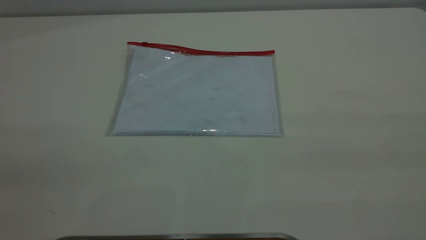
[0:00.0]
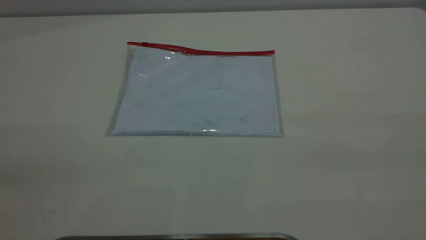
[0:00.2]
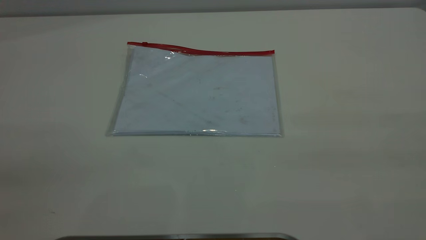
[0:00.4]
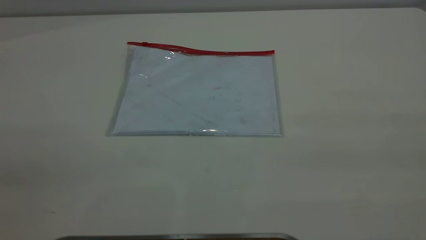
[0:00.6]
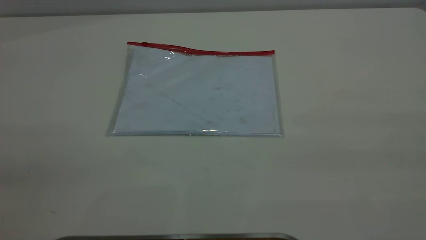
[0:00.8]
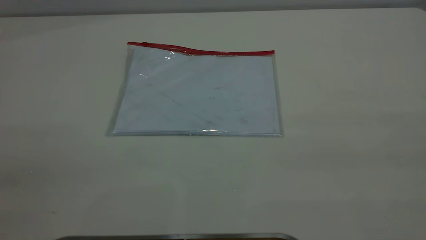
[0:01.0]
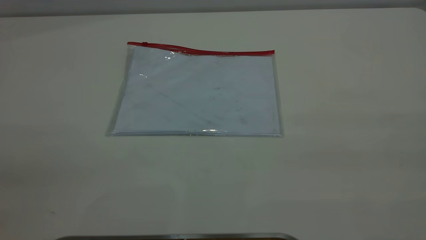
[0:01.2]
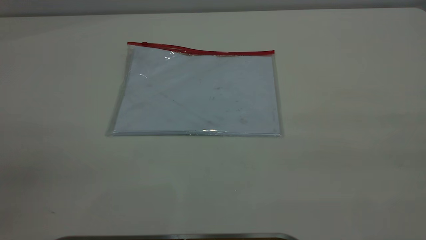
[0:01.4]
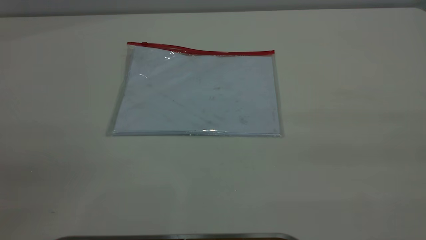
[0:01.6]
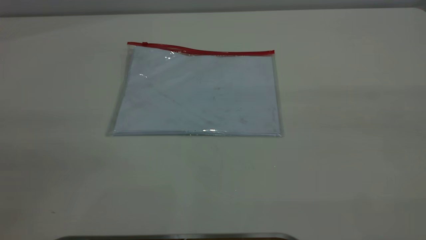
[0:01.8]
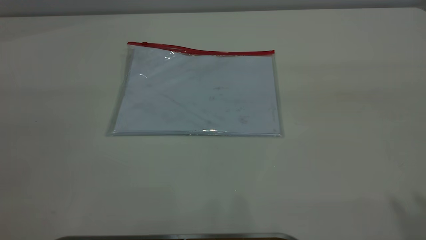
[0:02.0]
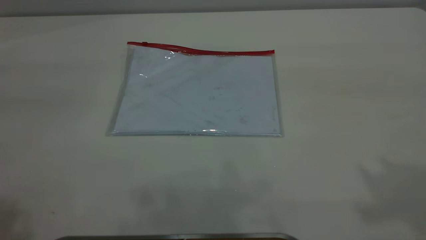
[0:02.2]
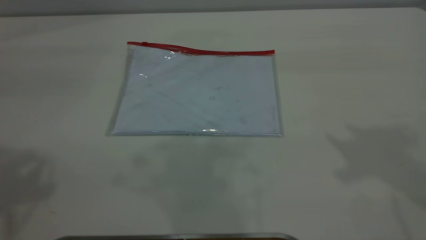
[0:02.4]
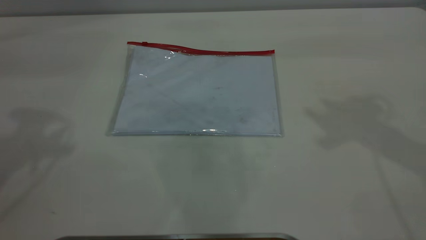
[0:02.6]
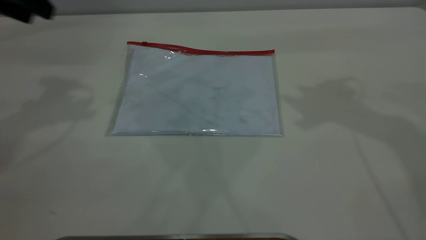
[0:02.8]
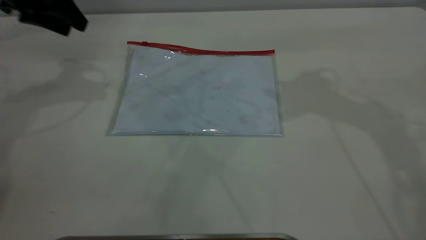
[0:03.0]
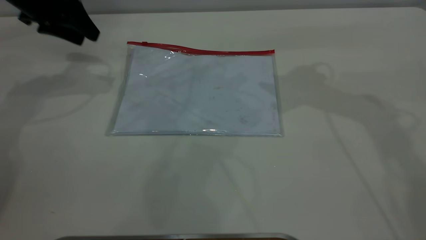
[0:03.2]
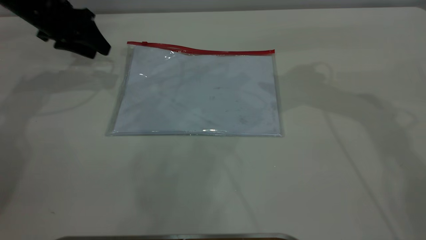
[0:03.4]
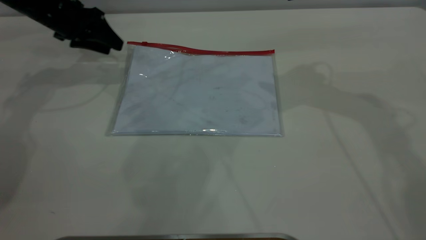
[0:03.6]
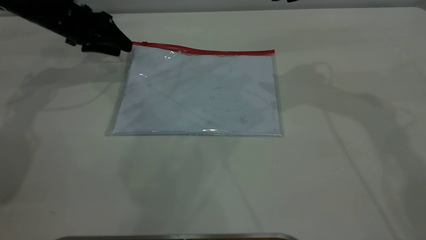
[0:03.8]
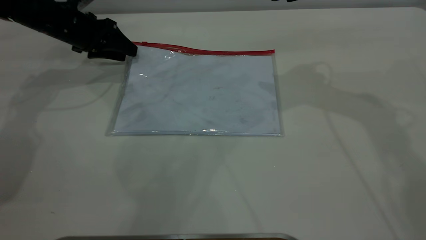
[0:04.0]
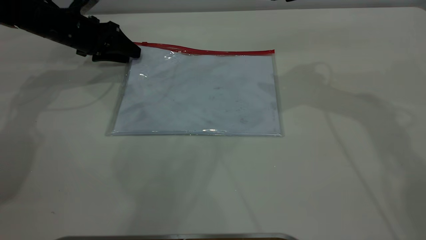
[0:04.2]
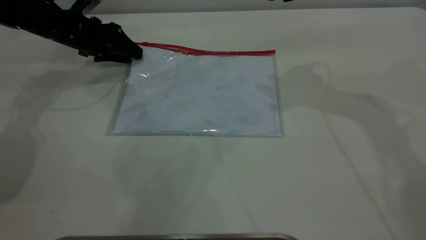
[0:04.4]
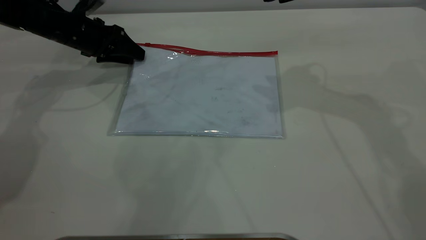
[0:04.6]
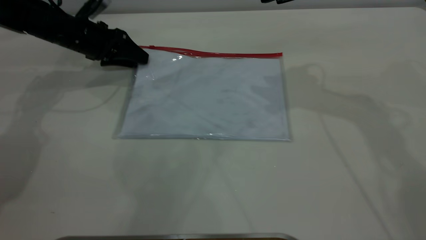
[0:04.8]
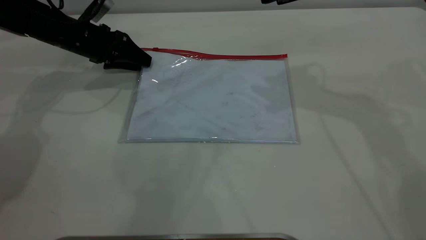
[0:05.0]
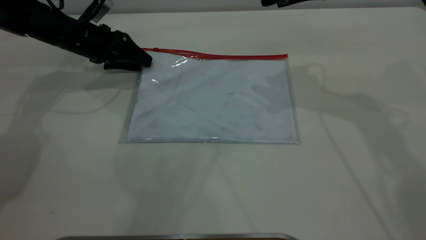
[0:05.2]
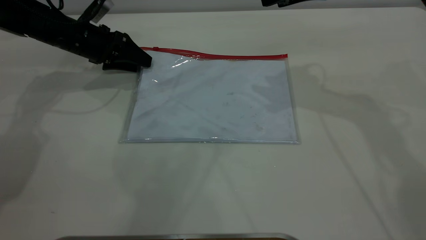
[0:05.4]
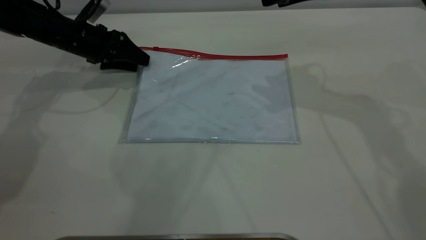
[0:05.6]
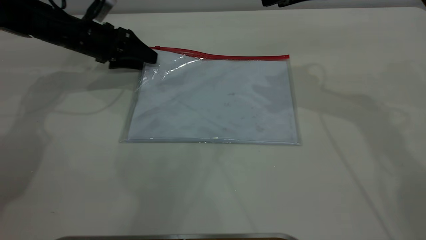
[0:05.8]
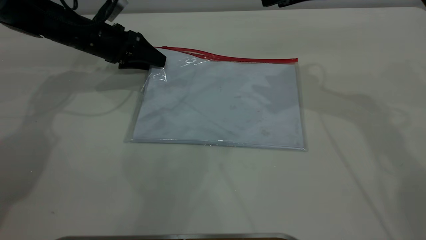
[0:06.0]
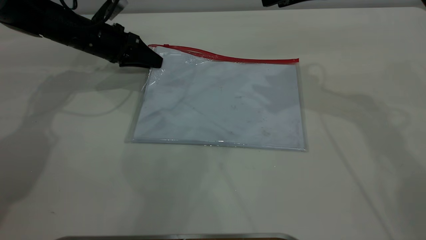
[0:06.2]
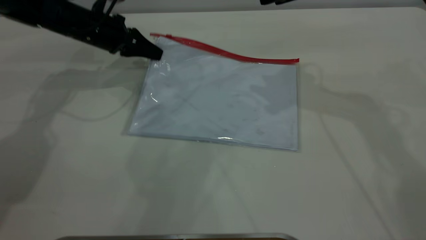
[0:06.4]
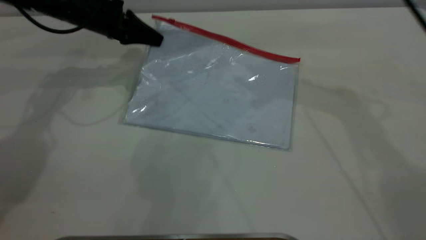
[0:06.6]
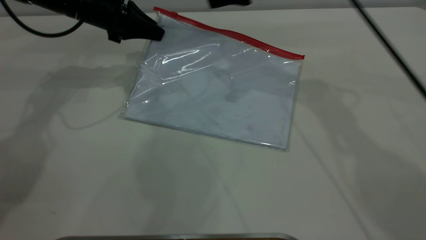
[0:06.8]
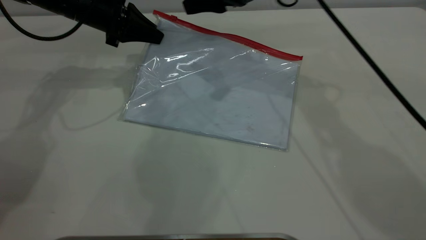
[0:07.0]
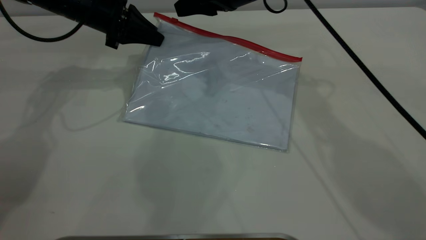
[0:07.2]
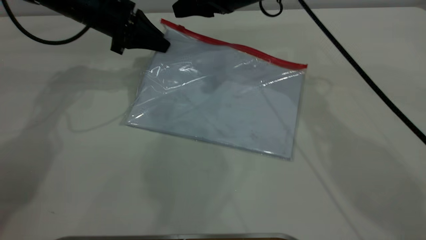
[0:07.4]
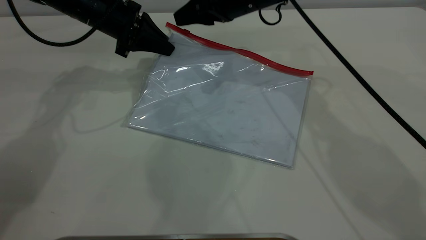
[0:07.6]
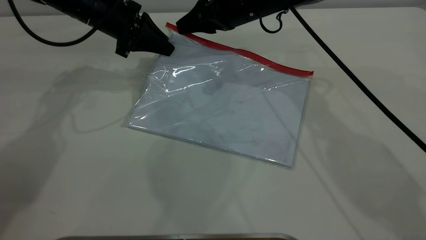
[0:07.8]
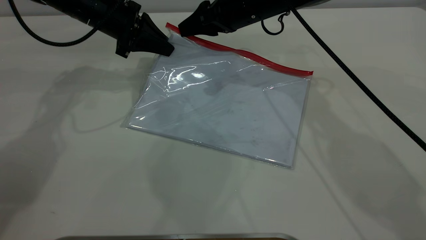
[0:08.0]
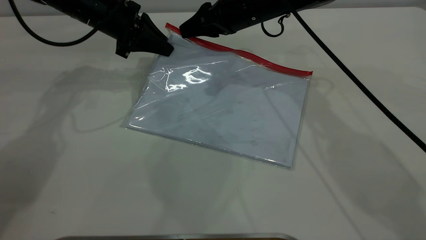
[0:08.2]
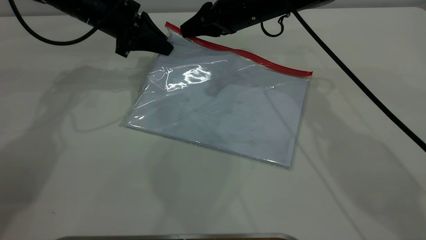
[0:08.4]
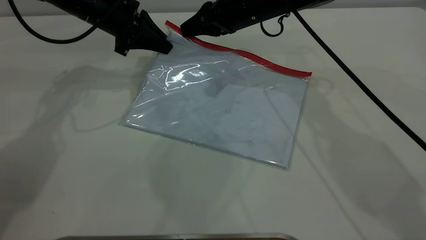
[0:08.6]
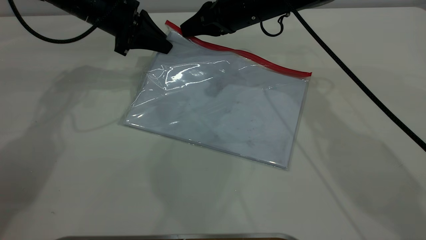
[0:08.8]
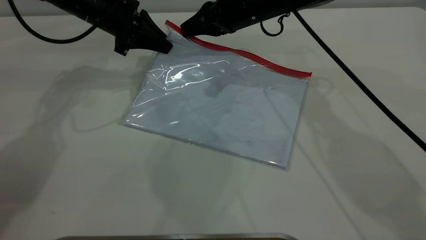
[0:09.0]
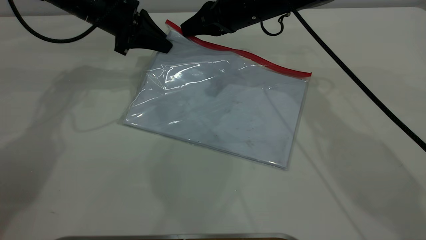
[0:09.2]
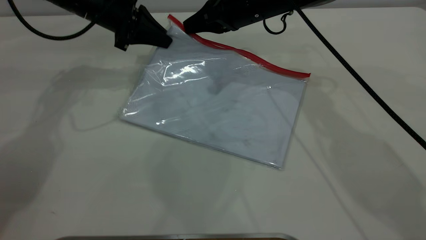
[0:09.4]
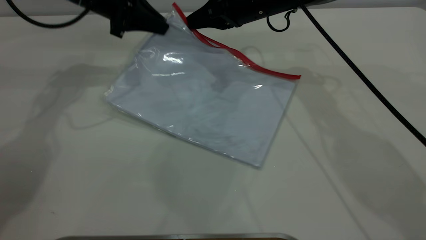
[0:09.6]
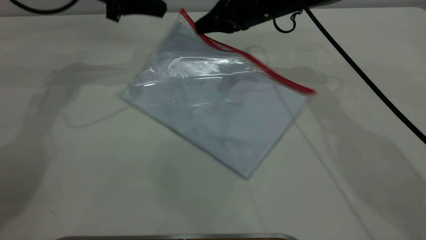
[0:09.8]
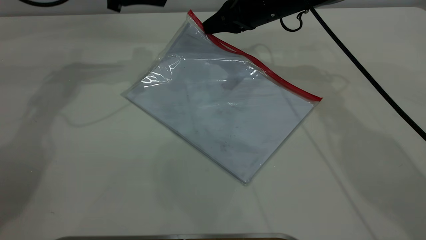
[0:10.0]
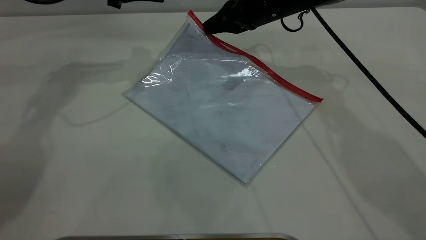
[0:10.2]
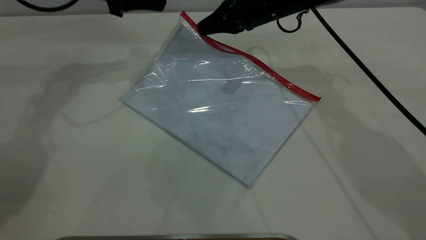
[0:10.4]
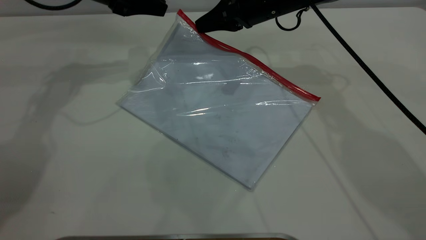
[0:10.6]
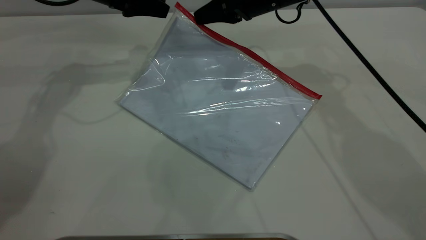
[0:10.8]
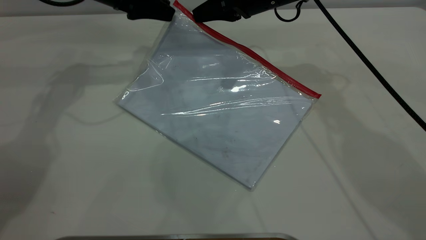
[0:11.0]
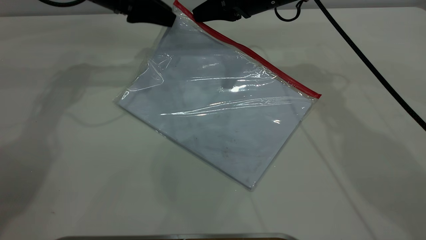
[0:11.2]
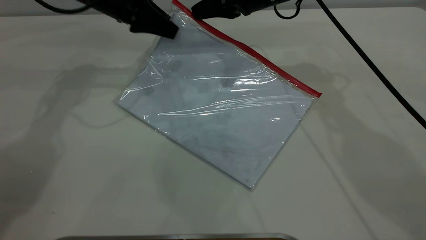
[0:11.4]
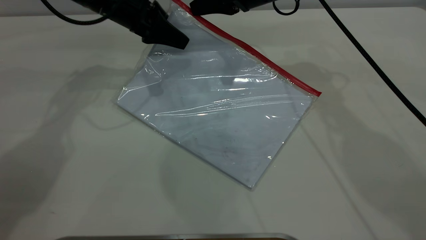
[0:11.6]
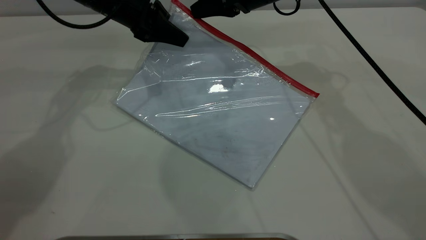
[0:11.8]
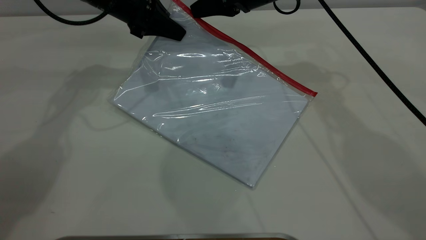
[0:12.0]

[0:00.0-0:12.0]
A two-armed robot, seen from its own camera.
Step, 0:00.0 to 0:06.4: Pick up the transparent plastic bag with the left gripper.
0:01.6 to 0:03.0: The left gripper heads forward, covering approximately 50 cm.
0:03.0 to 0:04.4: The left gripper travels downward and forward by about 15 cm.
0:04.4 to 0:06.0: The grippers make only small movements.
0:06.0 to 0:07.6: The left gripper shifts about 5 cm upward, and closes up, while the right gripper shifts roughly 15 cm to the left, downward and forward.
0:07.6 to 0:09.0: The right gripper closes up.
0:10.4 to 0:12.0: The left gripper opens and closes again.

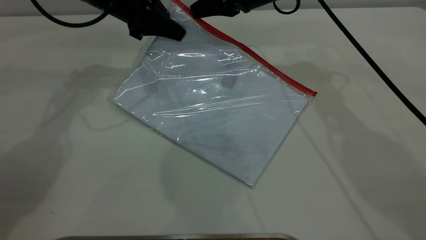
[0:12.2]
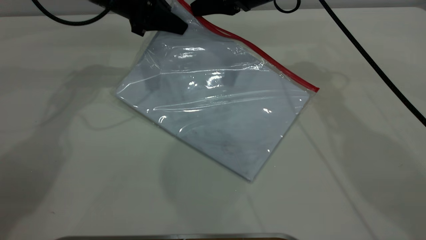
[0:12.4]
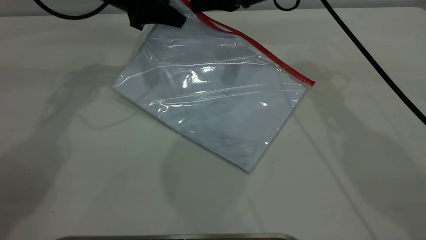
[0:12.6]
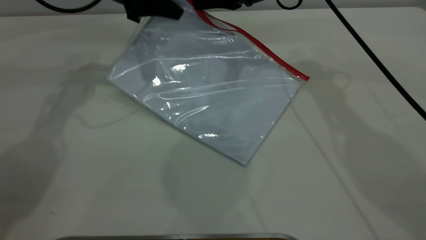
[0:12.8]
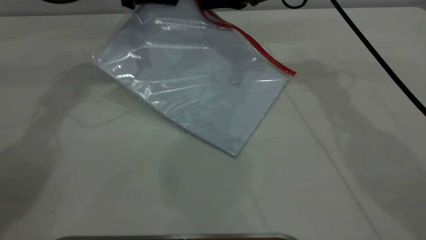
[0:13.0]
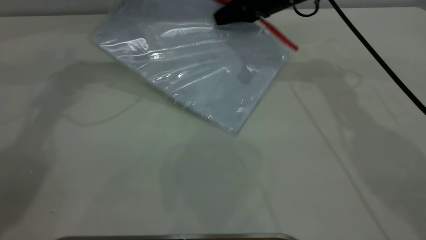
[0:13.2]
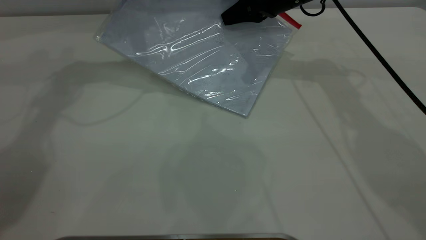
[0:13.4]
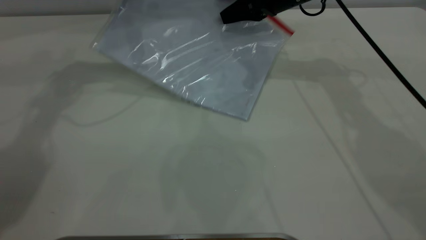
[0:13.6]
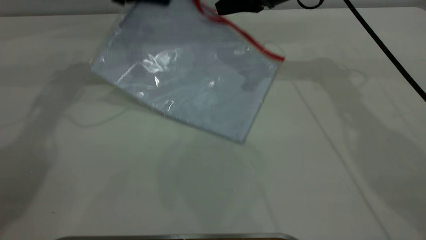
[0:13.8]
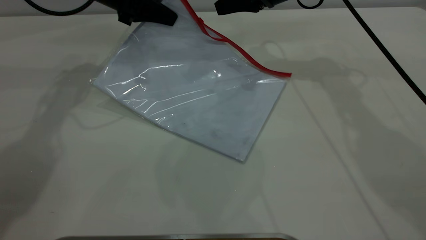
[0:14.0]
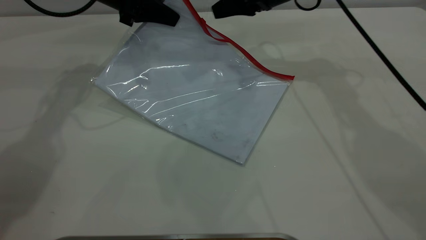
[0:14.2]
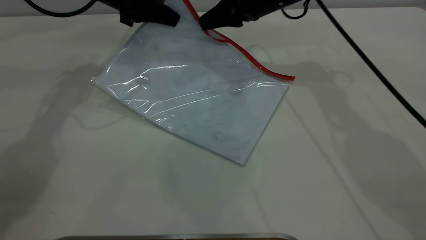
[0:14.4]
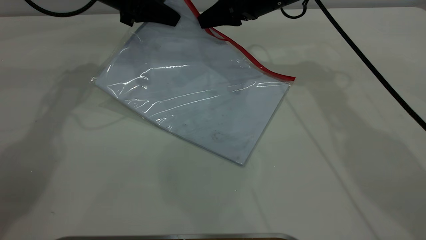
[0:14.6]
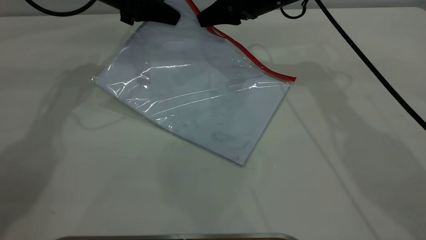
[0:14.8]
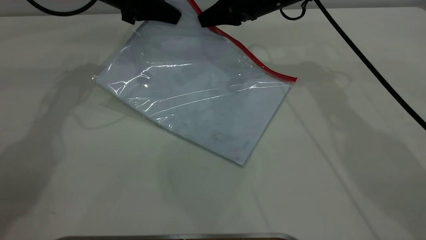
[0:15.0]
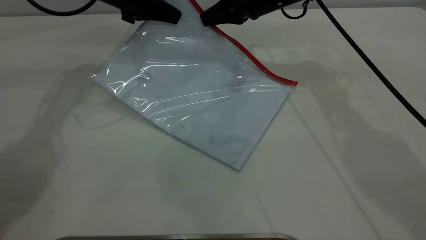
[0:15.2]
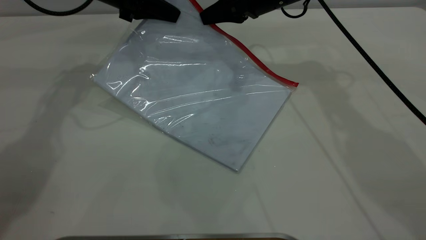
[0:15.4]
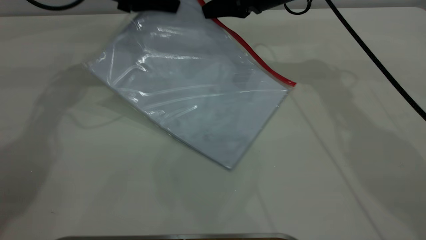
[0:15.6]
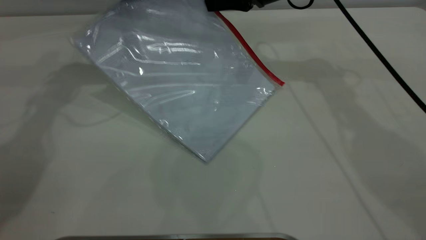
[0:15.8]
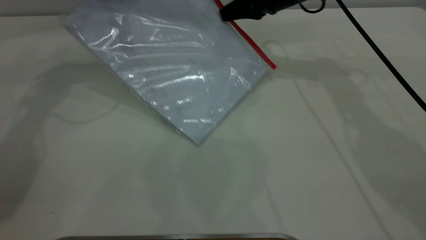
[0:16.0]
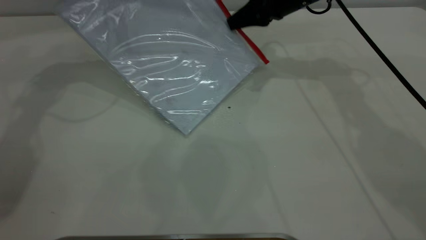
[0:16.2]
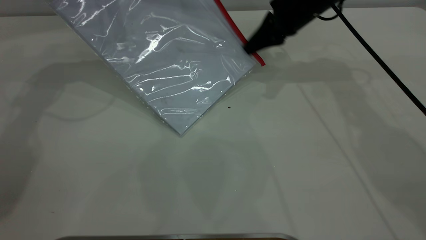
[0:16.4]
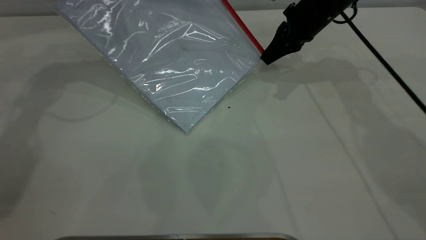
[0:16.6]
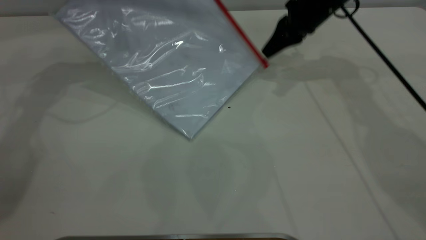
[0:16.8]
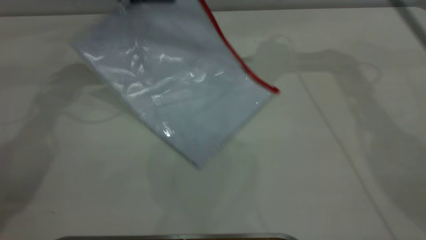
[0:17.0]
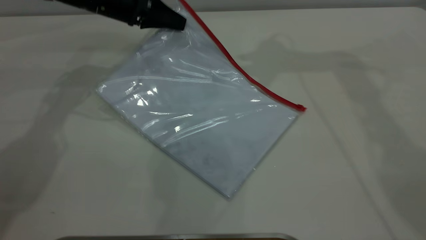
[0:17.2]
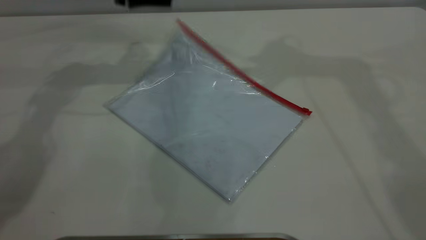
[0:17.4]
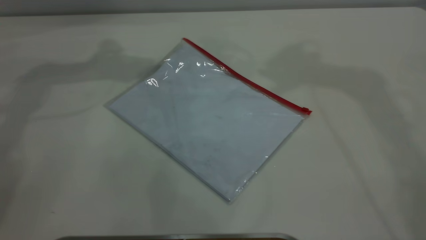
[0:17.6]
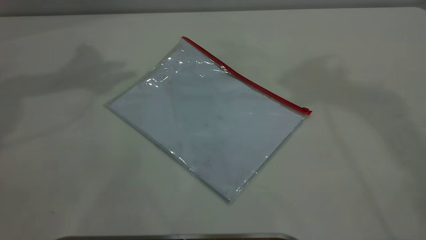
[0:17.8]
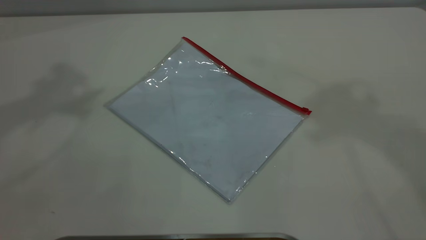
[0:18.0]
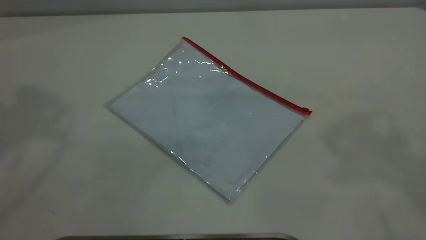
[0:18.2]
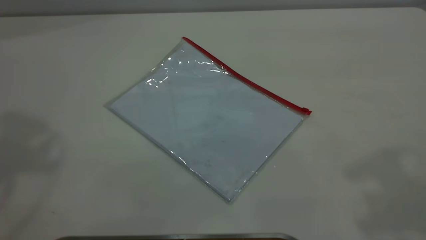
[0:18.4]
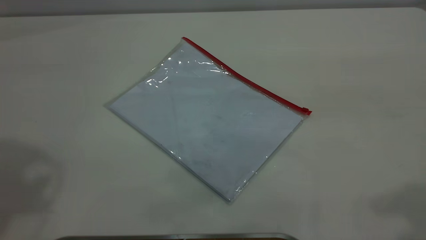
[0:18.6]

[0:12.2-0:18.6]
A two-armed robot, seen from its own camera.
Step, 0:12.2 to 0:16.8: Pulling up the zipper on the transparent plastic bag with the right gripper to close it.
Step, 0:17.0 to 0:17.4: Place the transparent plastic bag.
0:13.8 to 0:15.4: The right gripper opens, then closes once more.
0:15.4 to 0:17.0: The right gripper is displaced upward by about 15 cm, and opens up.
0:17.0 to 0:18.6: The left gripper heads backward and upward, covering some 40 cm, and opens, while the right gripper moves backward, roughly 35 cm.
